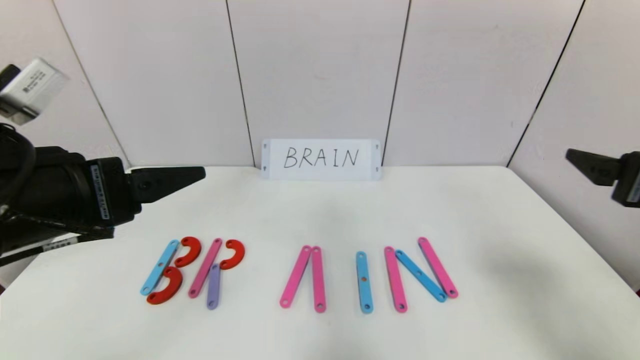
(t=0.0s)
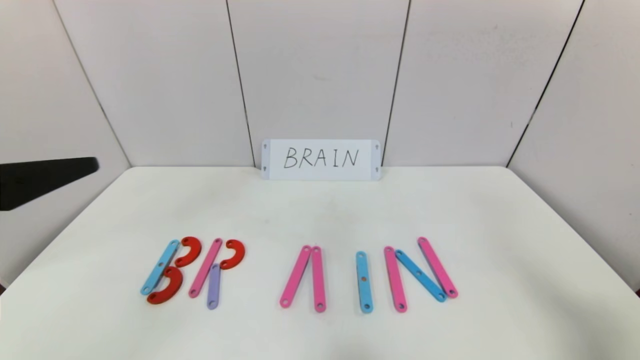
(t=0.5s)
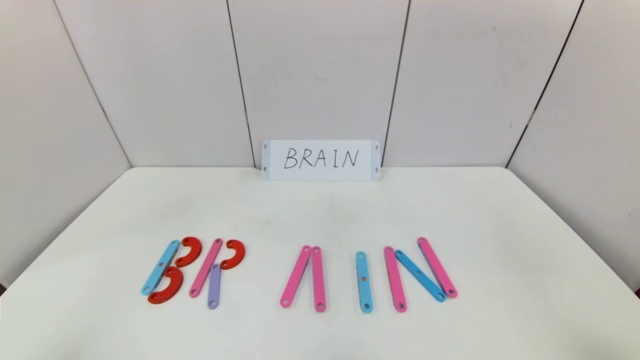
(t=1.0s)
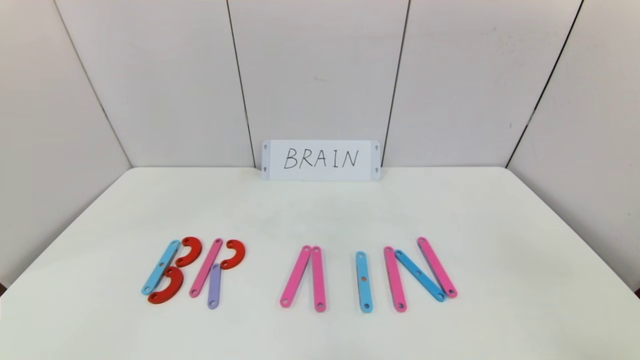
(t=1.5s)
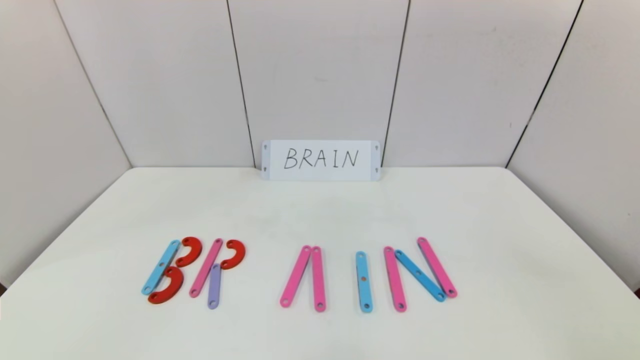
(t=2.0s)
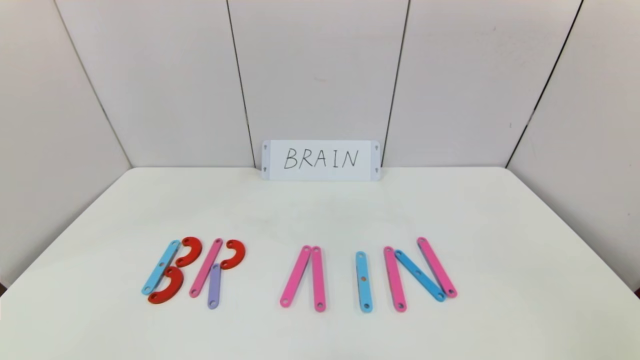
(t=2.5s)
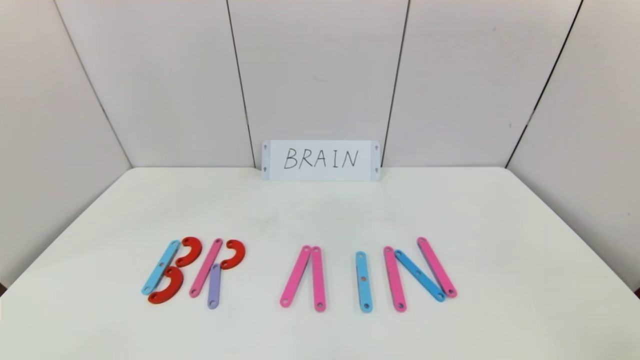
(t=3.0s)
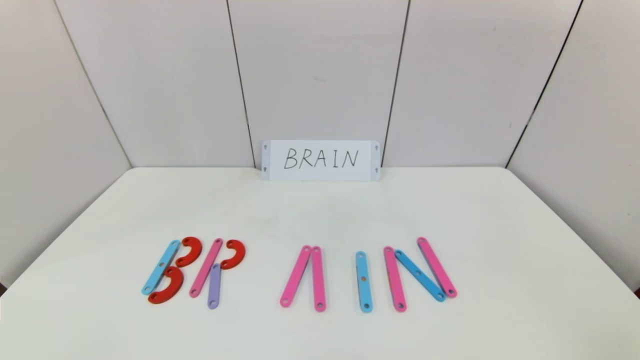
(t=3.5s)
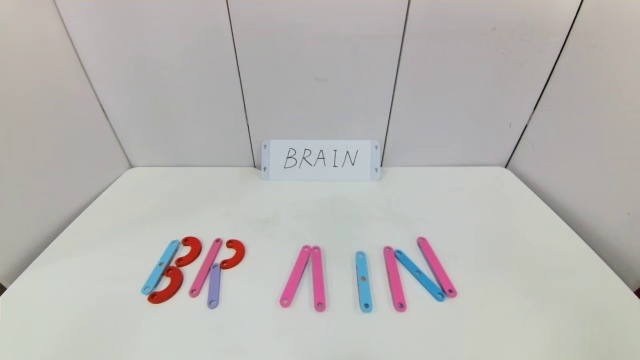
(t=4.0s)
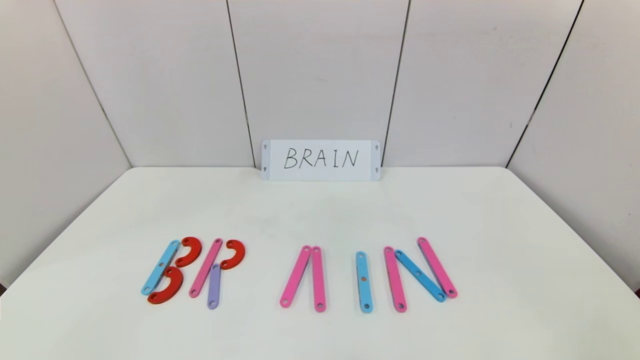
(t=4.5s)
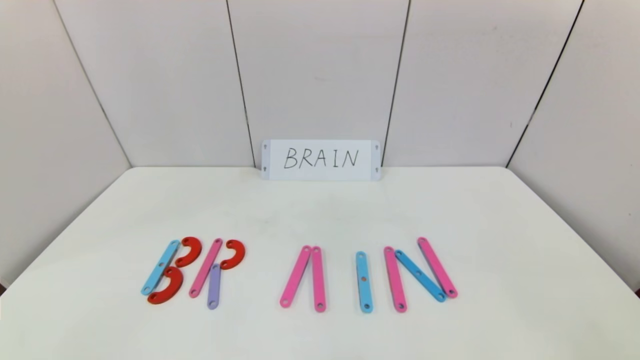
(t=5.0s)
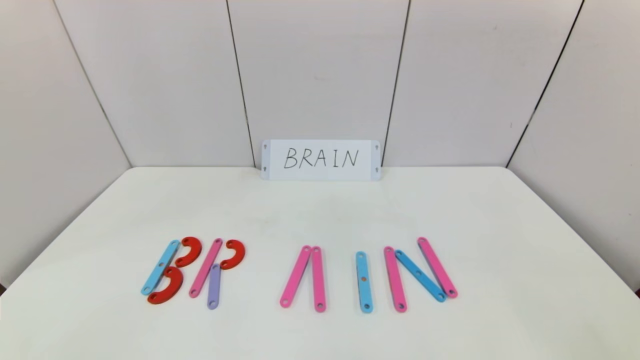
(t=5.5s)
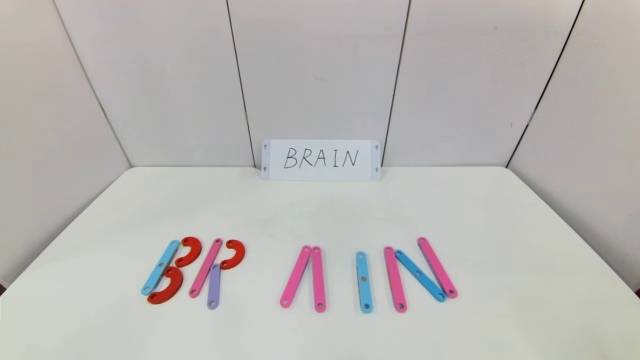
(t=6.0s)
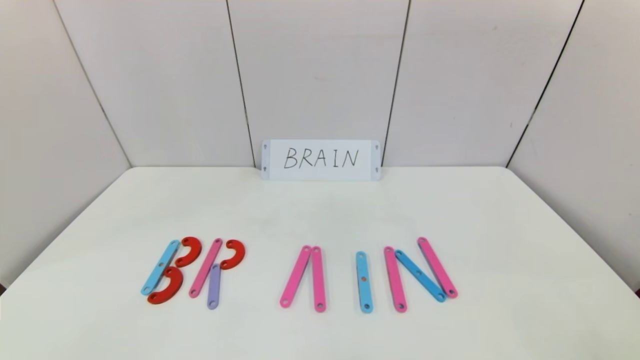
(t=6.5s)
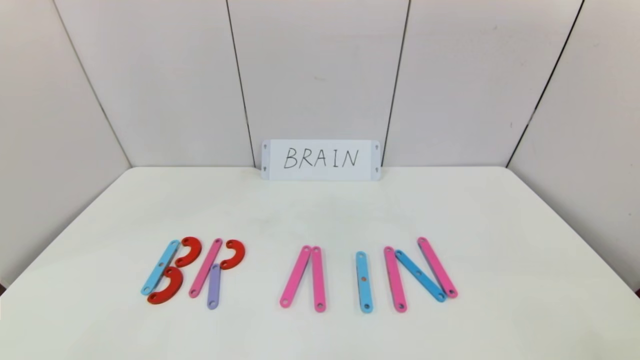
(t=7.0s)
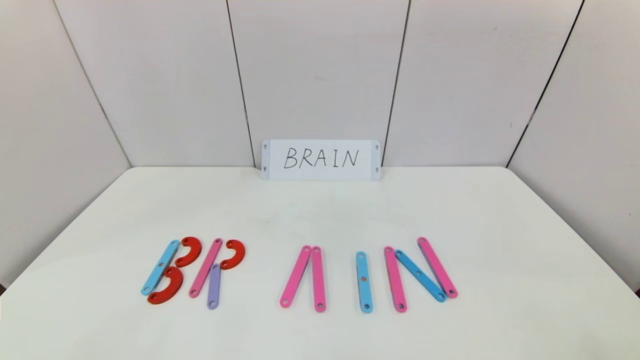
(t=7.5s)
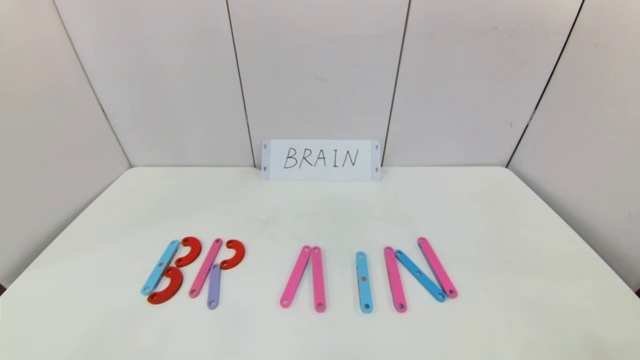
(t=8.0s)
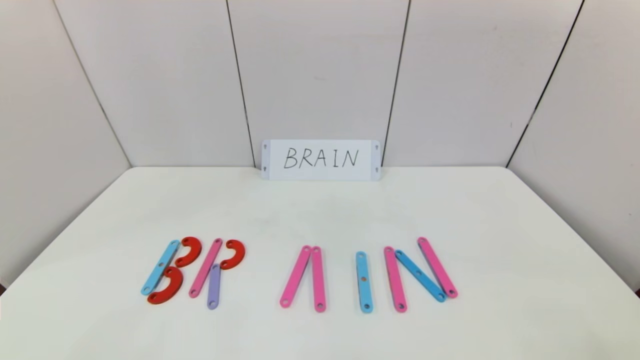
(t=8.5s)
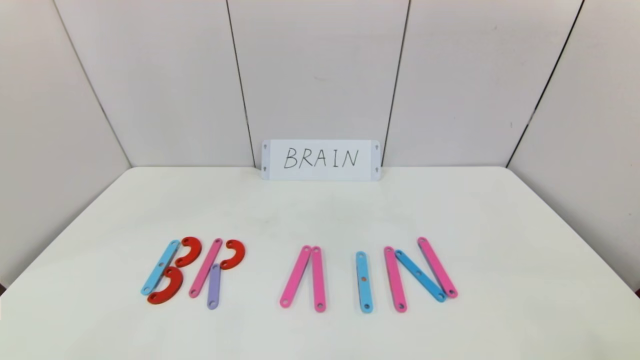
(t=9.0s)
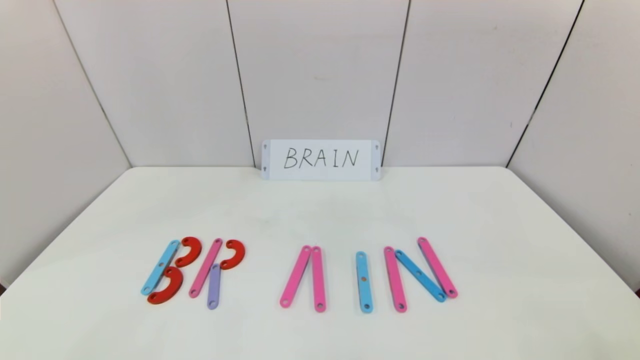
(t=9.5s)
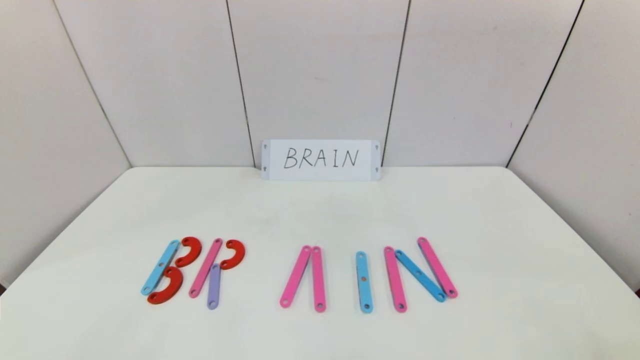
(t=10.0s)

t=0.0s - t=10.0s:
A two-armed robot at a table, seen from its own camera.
Task of the whole recording: rearrange the word baai as brain.
t=0.0s - t=2.0s: Both grippers move backward, some 25 cm.
